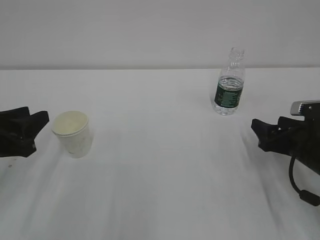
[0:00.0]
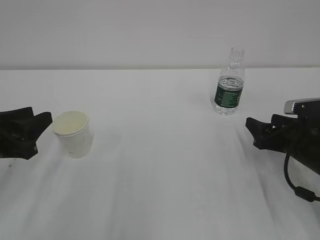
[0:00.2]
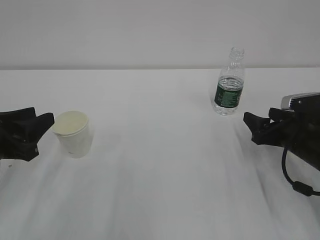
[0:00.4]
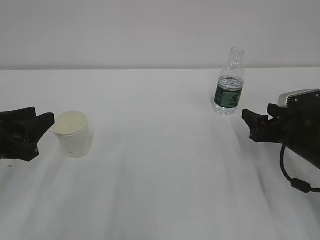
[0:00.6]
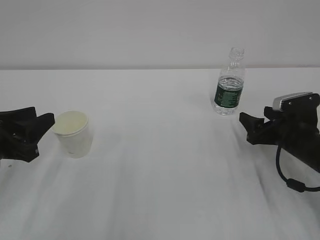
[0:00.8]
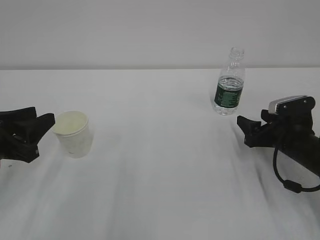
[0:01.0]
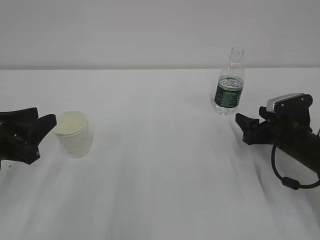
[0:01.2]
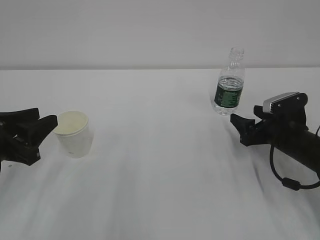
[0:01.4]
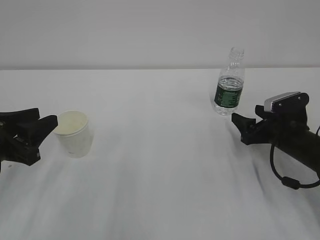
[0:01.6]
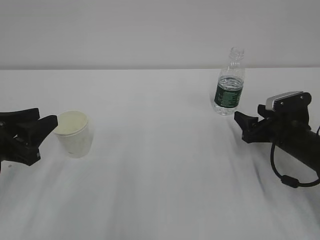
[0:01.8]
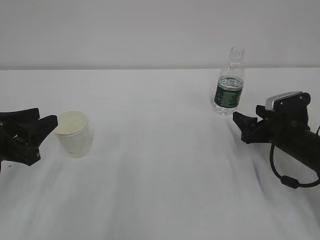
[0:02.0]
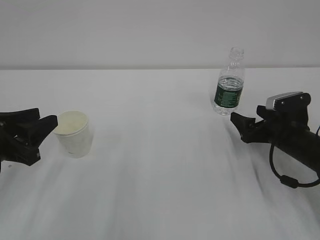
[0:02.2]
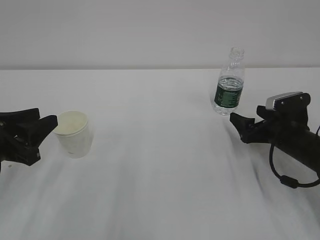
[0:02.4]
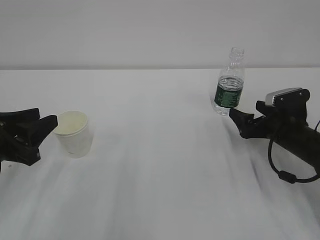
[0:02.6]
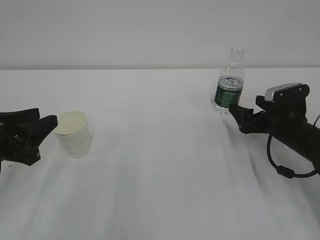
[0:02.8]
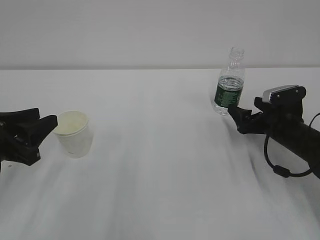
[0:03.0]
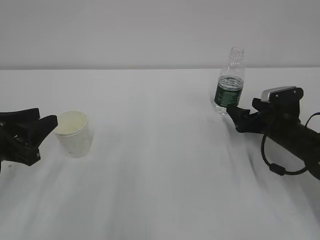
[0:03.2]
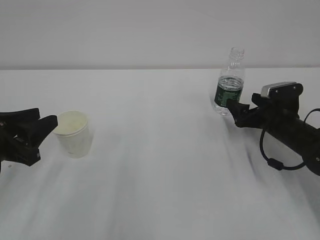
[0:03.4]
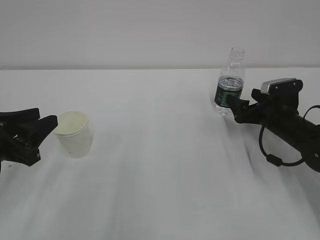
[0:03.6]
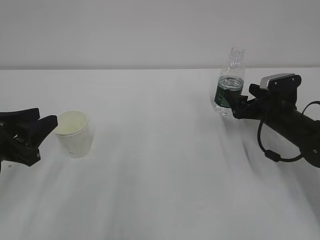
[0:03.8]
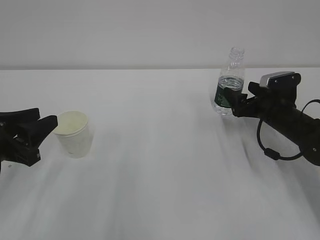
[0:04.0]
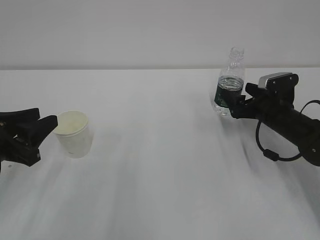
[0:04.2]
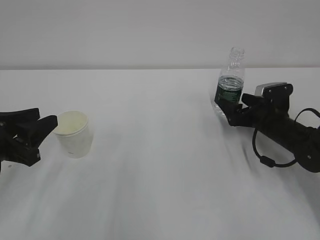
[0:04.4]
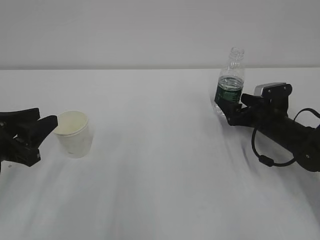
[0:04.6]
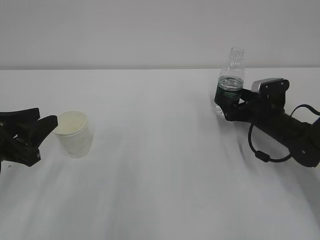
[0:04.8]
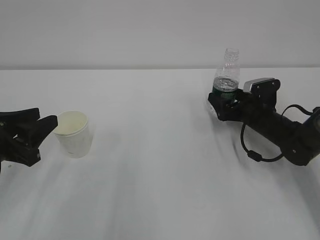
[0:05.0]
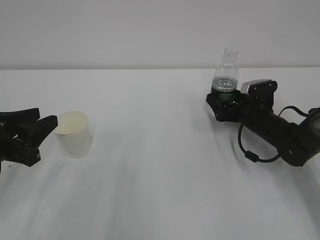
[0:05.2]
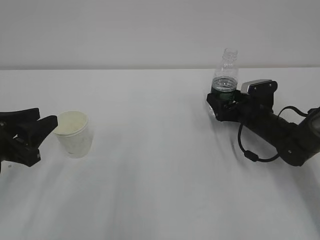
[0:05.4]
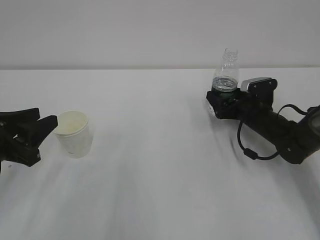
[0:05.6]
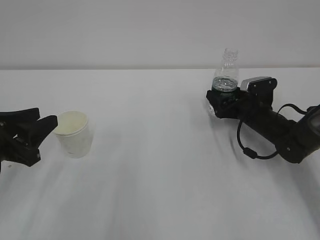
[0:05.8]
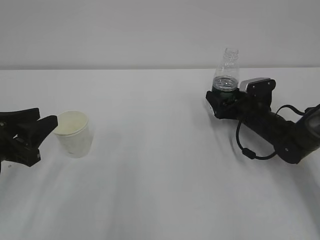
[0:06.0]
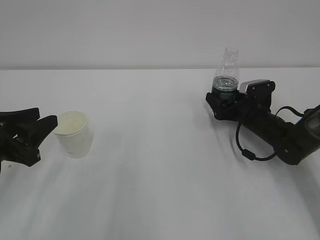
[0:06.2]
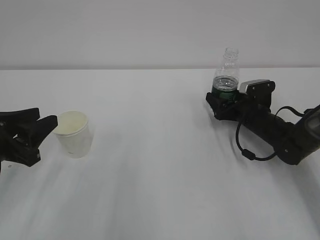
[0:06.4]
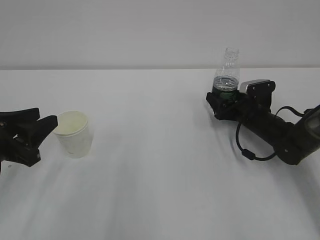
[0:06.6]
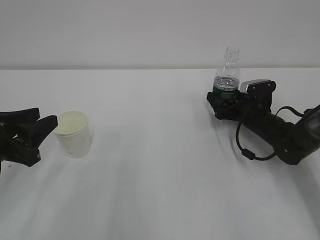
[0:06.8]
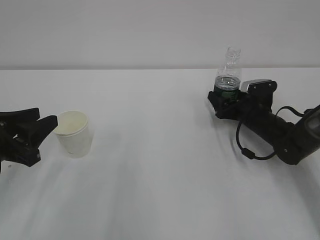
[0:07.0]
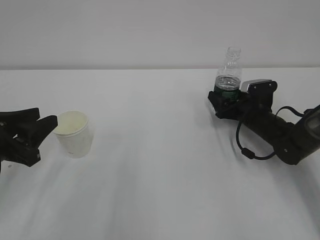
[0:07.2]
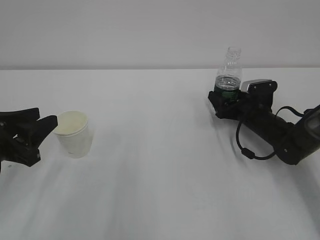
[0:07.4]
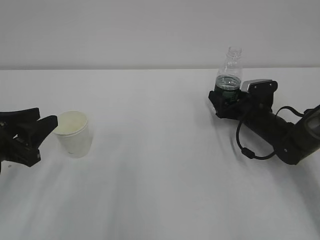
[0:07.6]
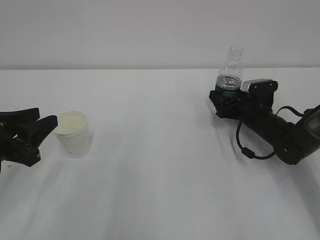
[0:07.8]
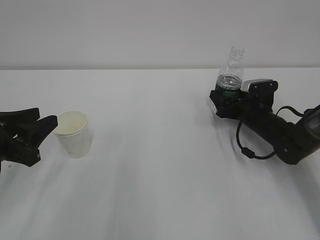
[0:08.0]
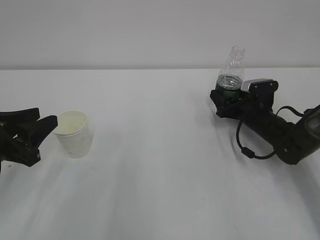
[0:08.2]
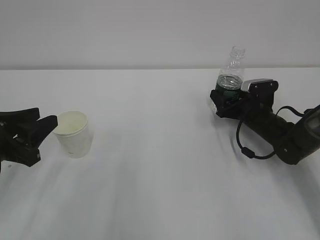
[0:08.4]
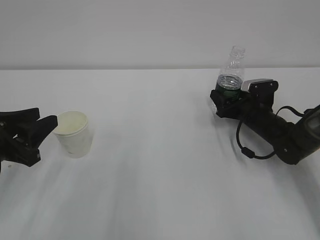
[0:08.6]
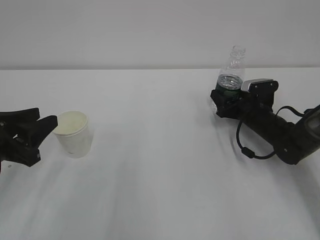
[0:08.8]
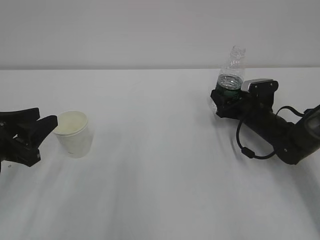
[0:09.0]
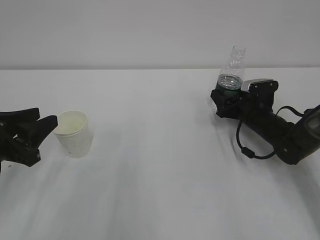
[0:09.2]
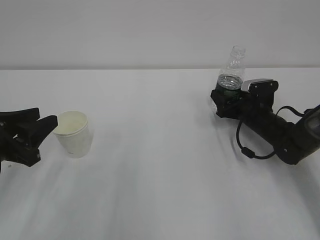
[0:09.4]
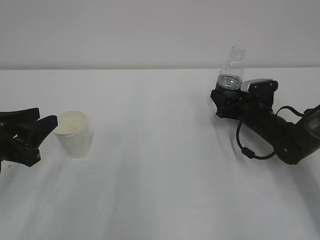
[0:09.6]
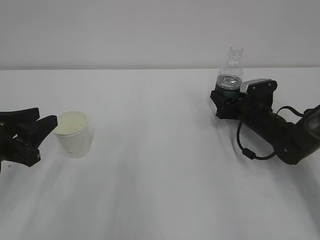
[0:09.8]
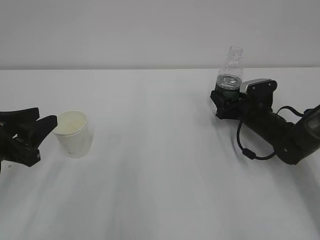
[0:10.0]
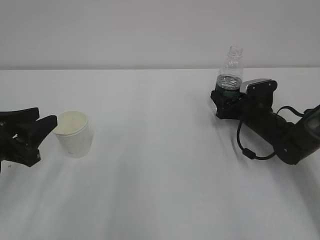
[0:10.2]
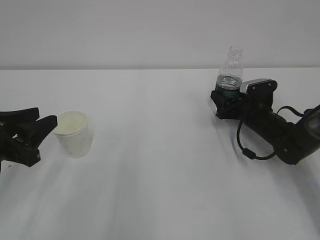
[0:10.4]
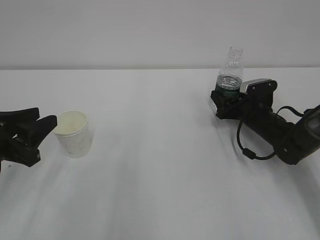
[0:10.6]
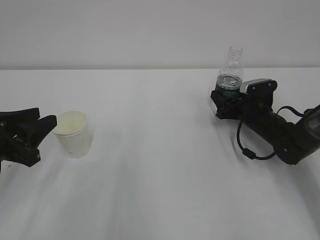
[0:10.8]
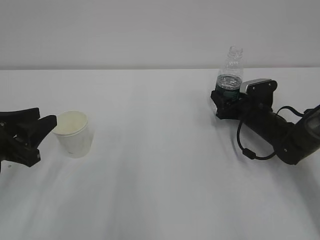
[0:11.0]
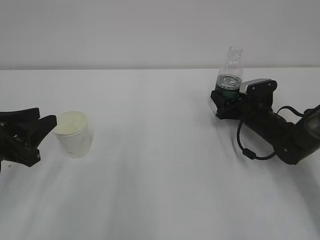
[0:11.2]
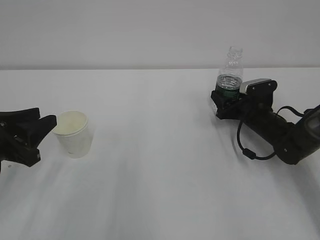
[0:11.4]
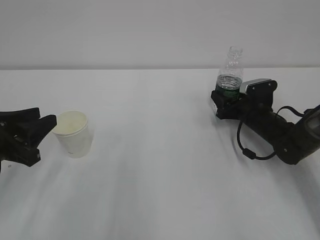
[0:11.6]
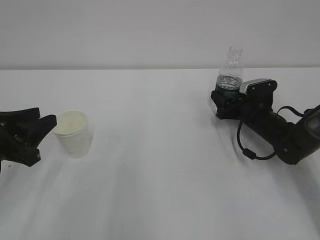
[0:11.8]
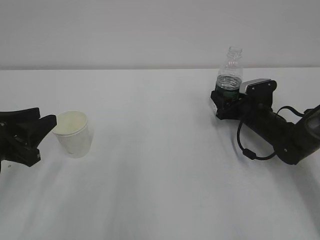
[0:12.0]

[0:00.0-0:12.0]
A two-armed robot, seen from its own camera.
0:00.0 to 0:01.6: The right gripper is displaced forward by roughly 5 cm.
0:01.6 to 0:03.0: The right gripper opens up.
0:03.0 to 0:04.4: The grippers make only small movements.
0:04.4 to 0:06.0: There are only small adjustments of the grippers.
0:06.0 to 0:07.6: Both grippers stay put.
0:09.0 to 0:12.0: The two grippers keep their place.

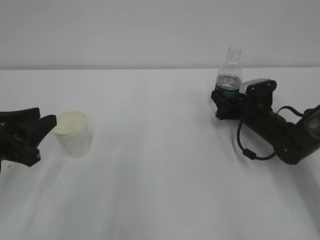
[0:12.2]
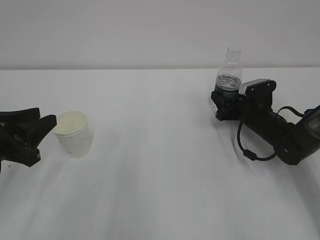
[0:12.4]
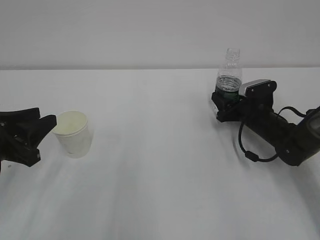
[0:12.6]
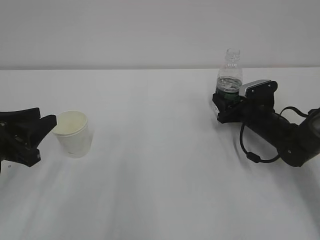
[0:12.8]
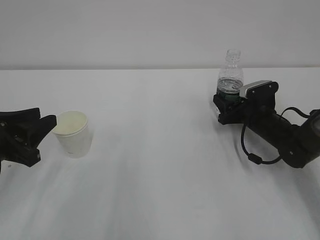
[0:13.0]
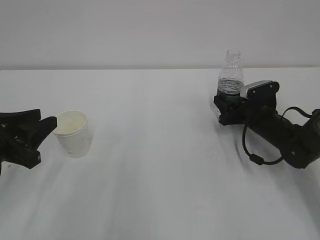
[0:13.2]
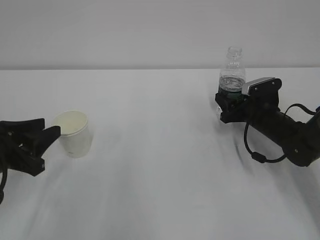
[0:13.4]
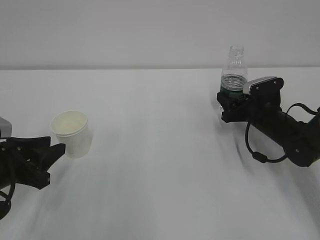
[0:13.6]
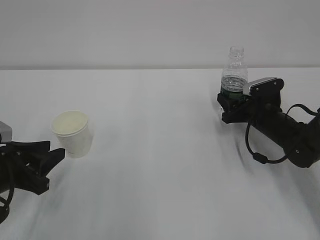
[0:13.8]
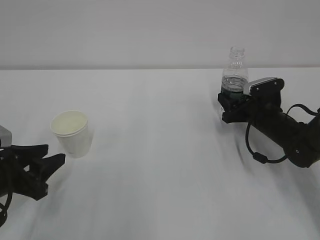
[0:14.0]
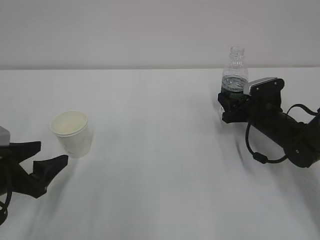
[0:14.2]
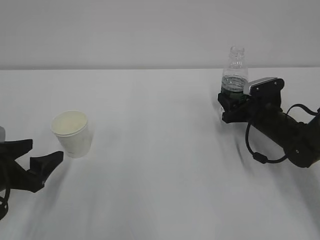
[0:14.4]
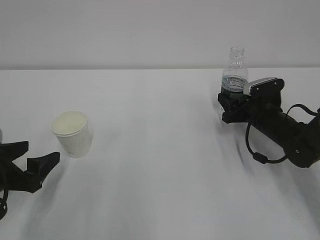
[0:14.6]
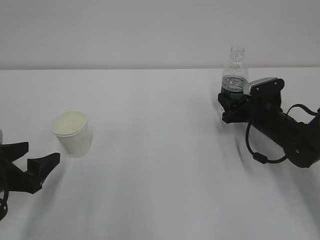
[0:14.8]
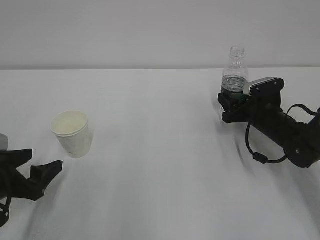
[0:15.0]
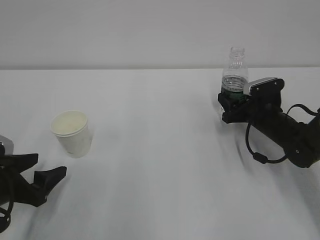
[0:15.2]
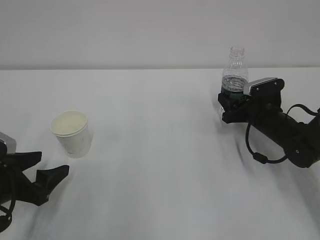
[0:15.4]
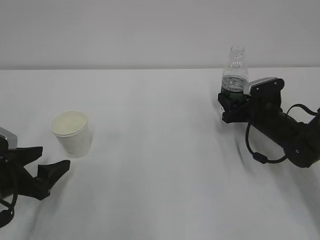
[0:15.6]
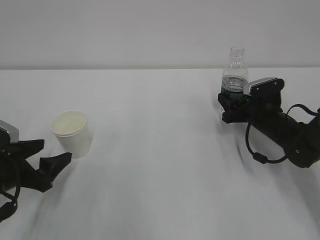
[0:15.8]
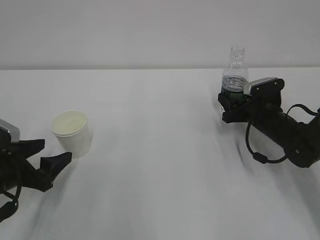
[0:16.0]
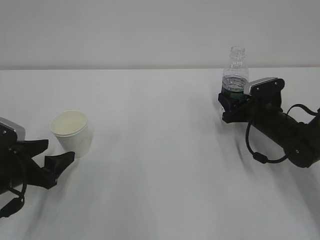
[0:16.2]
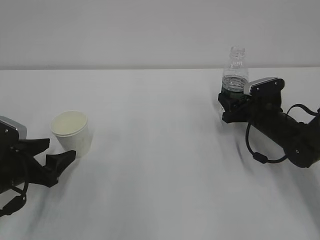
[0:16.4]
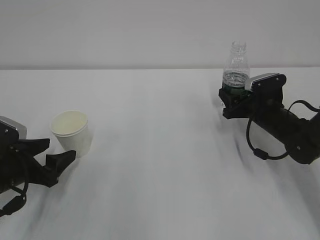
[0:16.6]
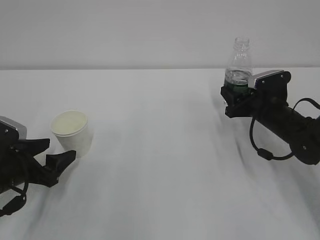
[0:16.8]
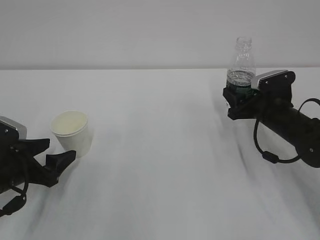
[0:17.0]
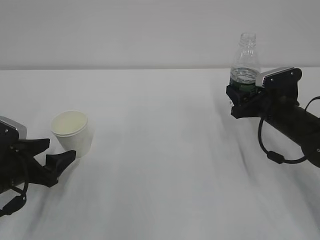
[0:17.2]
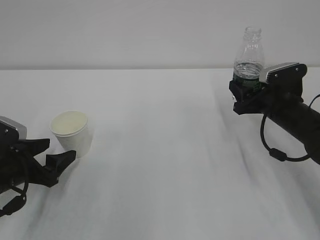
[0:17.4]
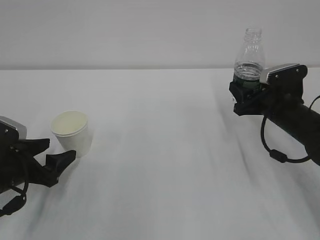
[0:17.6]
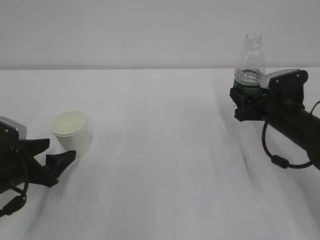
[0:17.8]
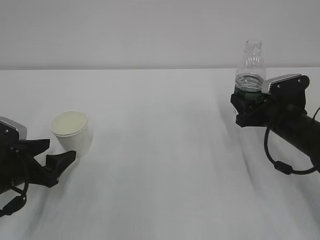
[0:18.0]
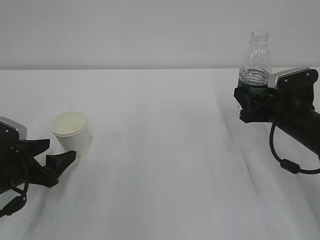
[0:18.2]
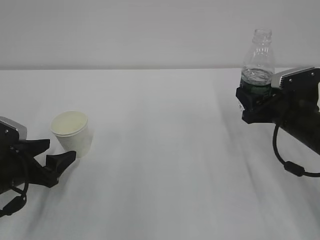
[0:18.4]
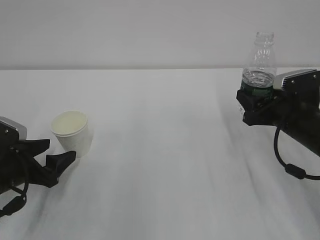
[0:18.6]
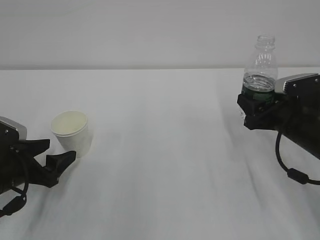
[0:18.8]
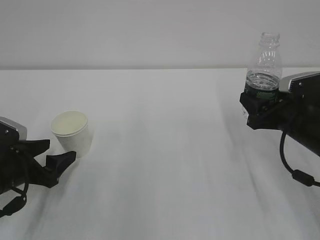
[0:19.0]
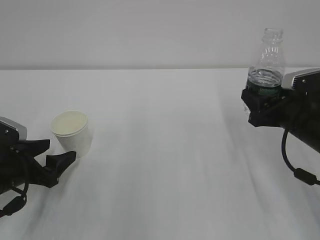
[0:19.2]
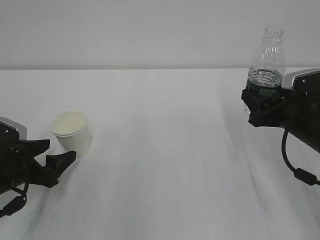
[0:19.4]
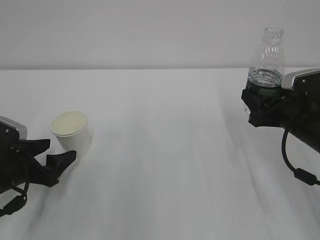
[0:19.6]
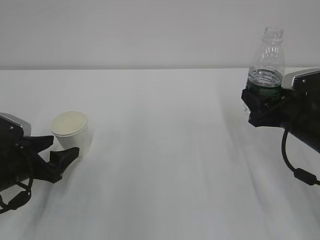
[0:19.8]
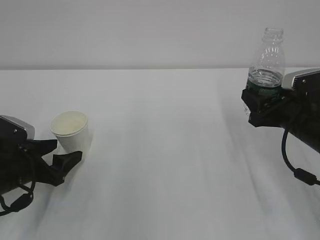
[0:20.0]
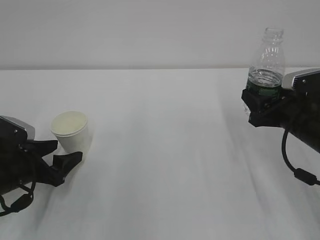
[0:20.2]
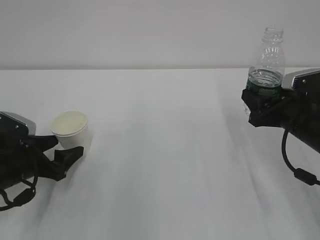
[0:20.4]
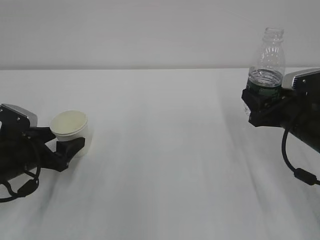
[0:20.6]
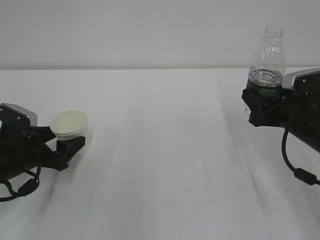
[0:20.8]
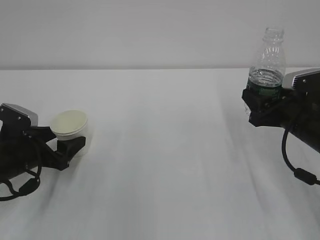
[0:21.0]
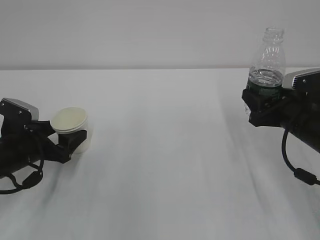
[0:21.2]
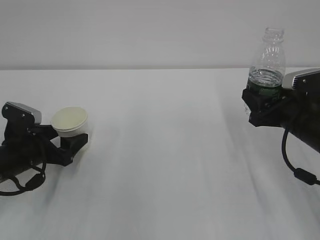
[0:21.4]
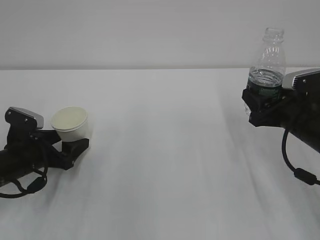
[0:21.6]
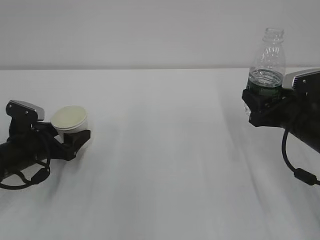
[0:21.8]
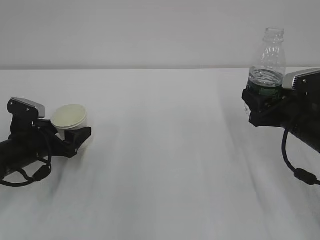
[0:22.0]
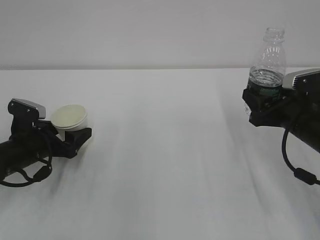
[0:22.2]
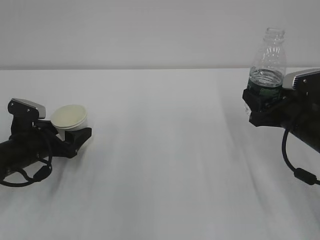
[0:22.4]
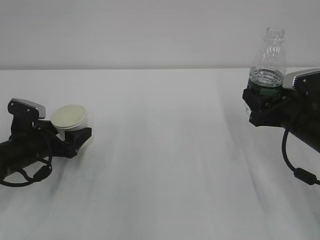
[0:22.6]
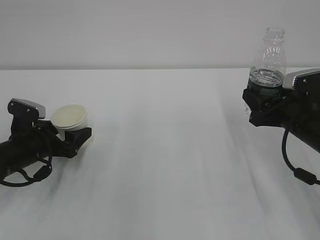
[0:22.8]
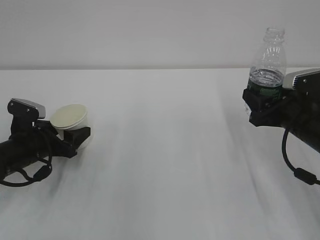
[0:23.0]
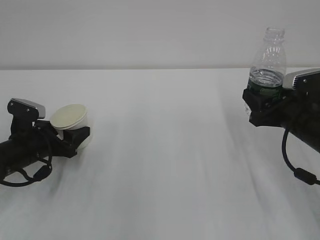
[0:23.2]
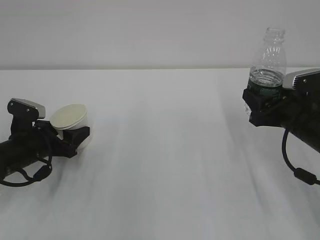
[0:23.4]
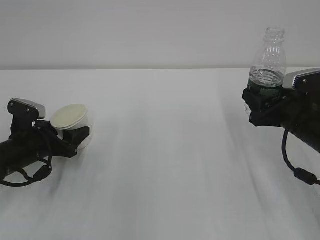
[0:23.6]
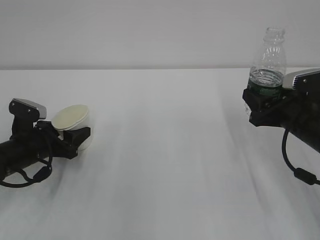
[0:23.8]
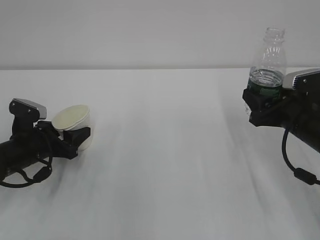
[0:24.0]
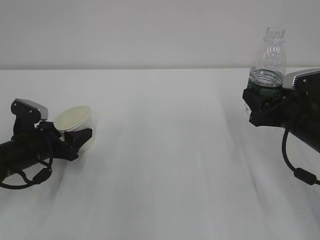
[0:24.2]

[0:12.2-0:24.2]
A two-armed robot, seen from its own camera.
0:12.2 to 0:13.8: There are only small adjustments of the grippers.
0:13.8 to 0:15.2: The left gripper opens its fingers.
0:15.2 to 0:16.6: The grippers stay close to where they were, moving slightly.
0:16.6 to 0:18.2: The right gripper shifts some 10 cm backward and upward.
0:18.2 to 0:21.2: The grippers stay close to where they were, moving slightly.
0:21.2 to 0:22.6: There are only small adjustments of the grippers.
0:22.6 to 0:24.2: The left gripper closes up.
